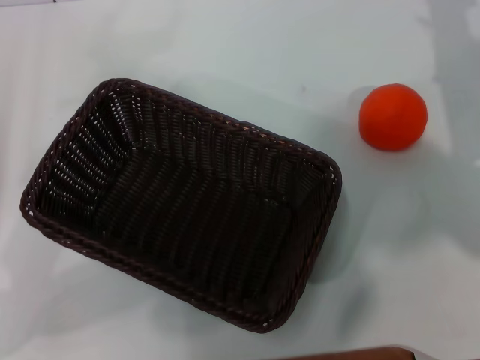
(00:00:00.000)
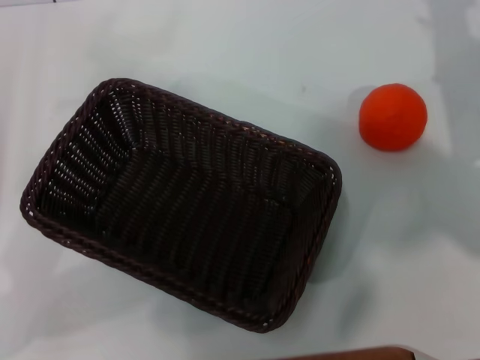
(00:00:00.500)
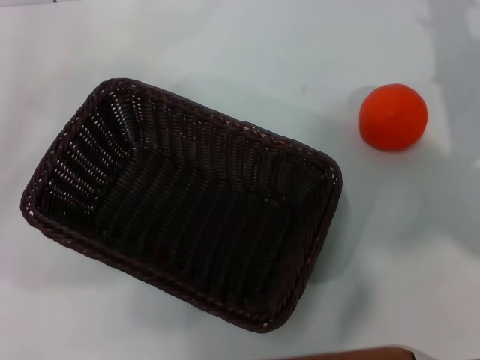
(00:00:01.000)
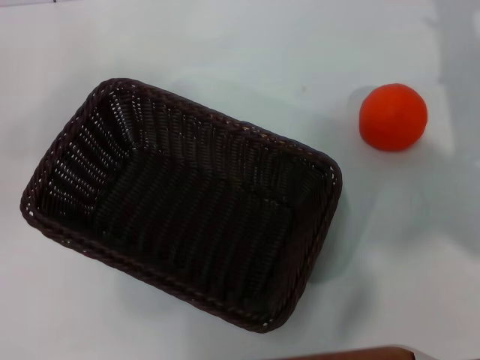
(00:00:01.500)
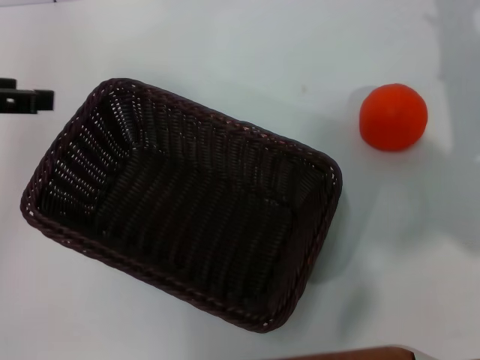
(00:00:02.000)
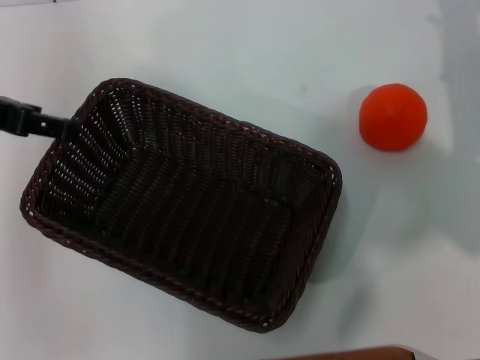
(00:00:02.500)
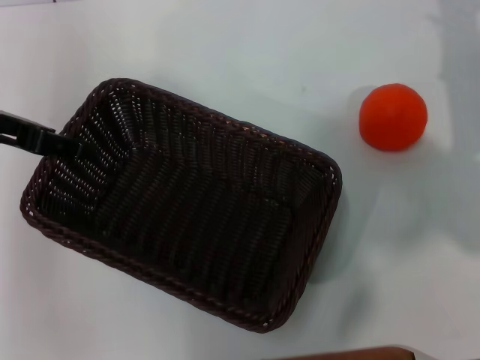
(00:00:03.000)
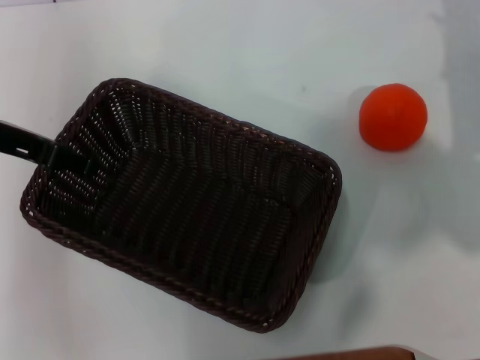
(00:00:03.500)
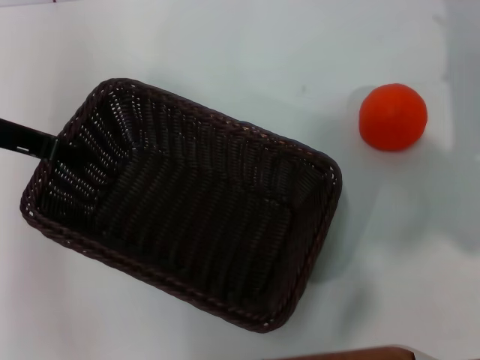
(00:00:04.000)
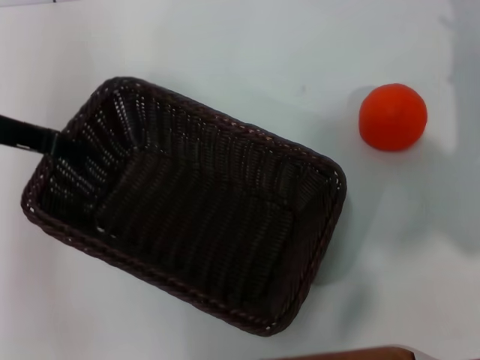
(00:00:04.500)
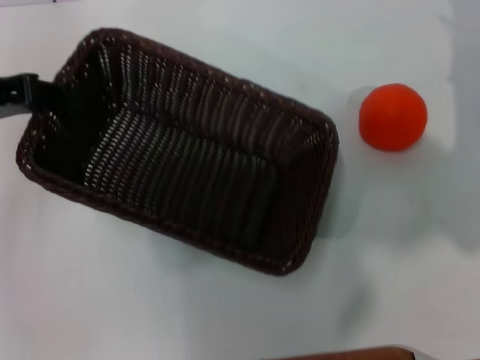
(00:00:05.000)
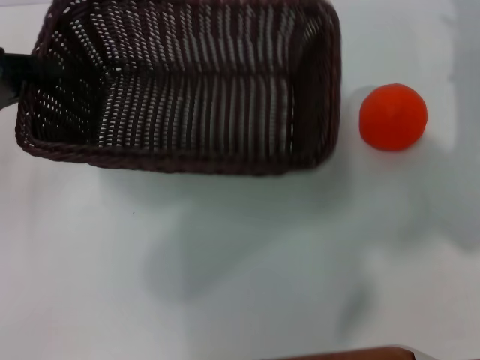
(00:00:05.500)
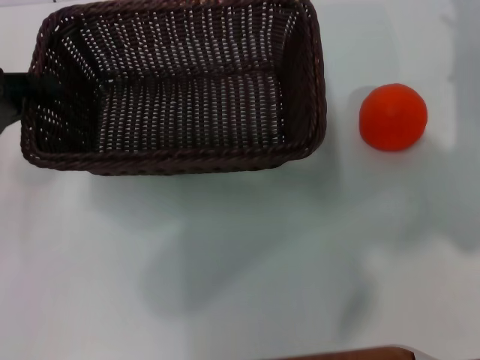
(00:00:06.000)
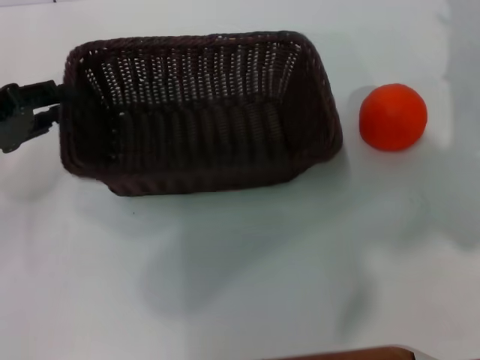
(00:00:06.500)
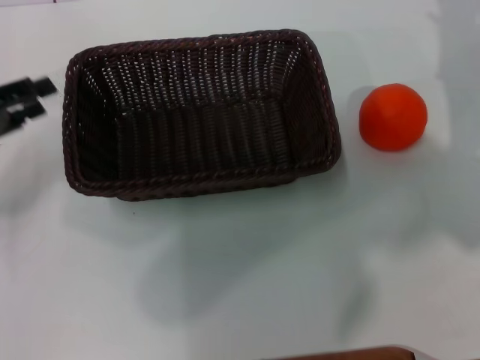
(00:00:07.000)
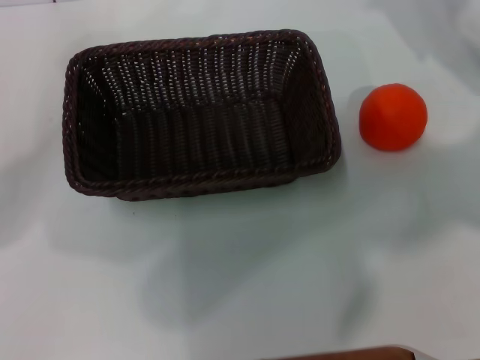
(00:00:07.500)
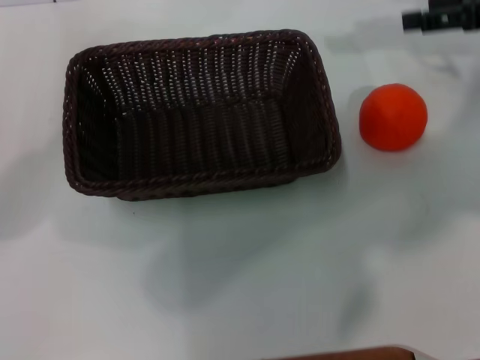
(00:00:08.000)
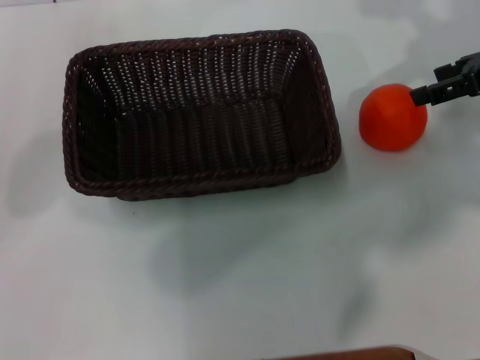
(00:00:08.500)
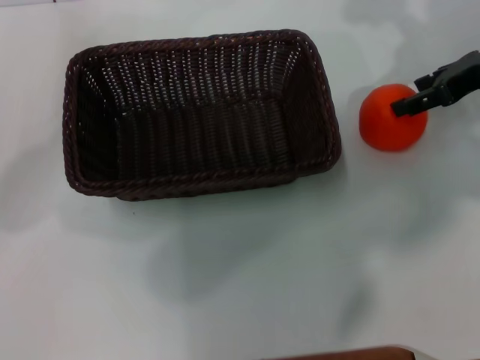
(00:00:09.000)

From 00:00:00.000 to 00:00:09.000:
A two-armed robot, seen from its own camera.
Task of the whole recording: the left gripper pick up the black basket and place it horizontally in the middle of the table, the right gripper pick up the orange and place it into the black basket.
Step, from 00:00:00.000 to 00:00:04.500: Pick up the dark basket with the left gripper.
Step, from 00:00:05.000 to 00:00:06.500: Place the dark basket in the center of view with the left gripper.
From 00:00:00.000 to 00:00:02.000: The left gripper moves upward and forward, about 15 cm.
From 00:00:02.000 to 00:00:04.500: The left gripper moves some 5 cm, and closes.
From 00:00:04.500 to 00:00:07.000: The left gripper shifts approximately 10 cm to the left and downward, and opens its fingers.
From 00:00:07.000 to 00:00:09.000: The left gripper opens its fingers, while the right gripper shifts some 10 cm upward.

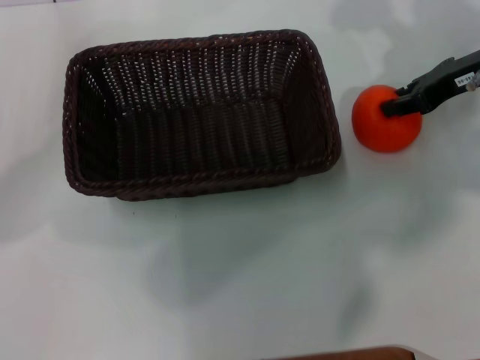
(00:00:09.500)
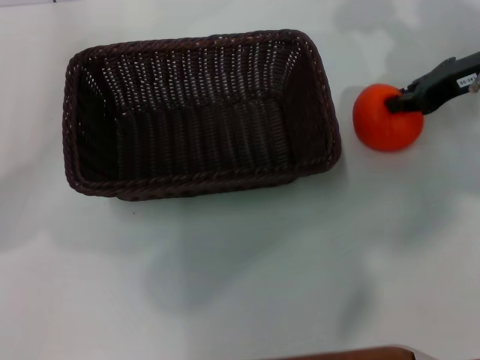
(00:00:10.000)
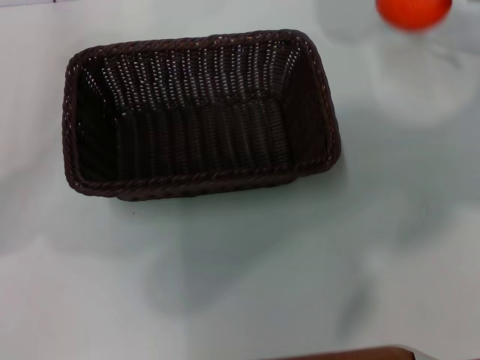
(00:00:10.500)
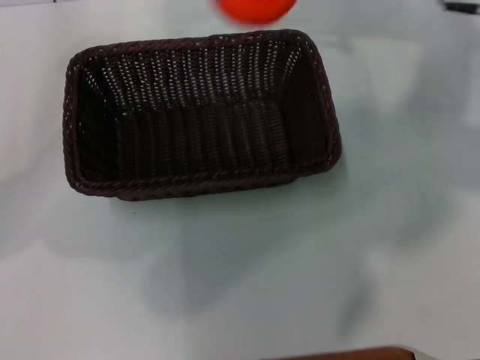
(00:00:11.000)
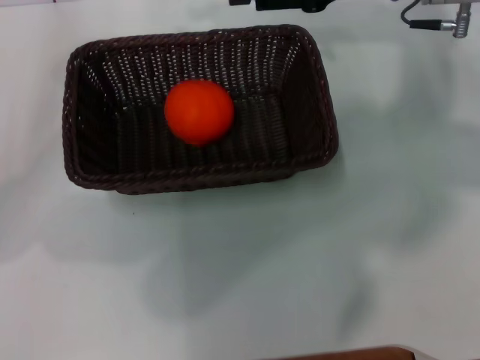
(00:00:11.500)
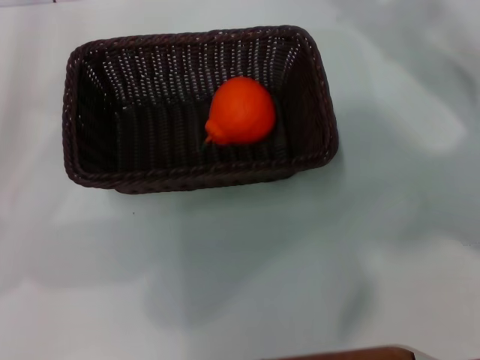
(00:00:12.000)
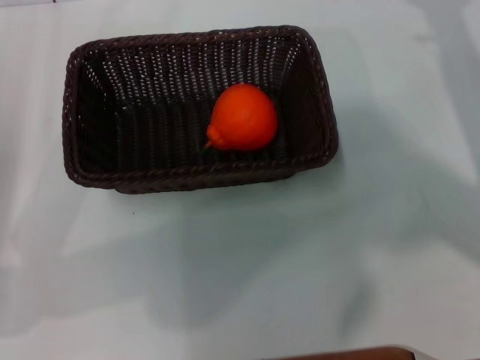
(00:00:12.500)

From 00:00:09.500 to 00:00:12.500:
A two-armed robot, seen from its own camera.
Task of the whole recording: the left gripper pick up the black basket and place it horizontally in the middle of the table, the right gripper pick up the orange and place it into the black basket.
Step, from 00:00:10.500 to 00:00:11.500: Place the orange into the dark basket with the right gripper.
From 00:00:09.500 to 00:00:11.000: The right gripper travels upward and to the left by about 10 cm, and closes up.
From 00:00:11.000 to 00:00:12.500: The right gripper goes some 15 cm downward, to the right and backward, and opens up. Meanwhile the left gripper shifts by approximately 5 cm.

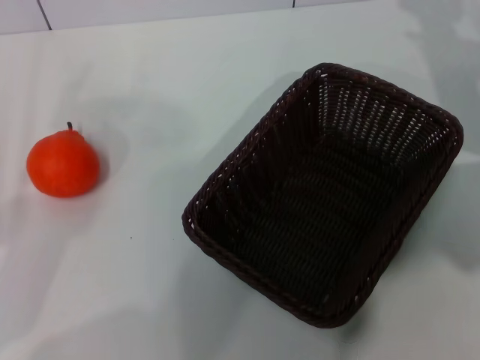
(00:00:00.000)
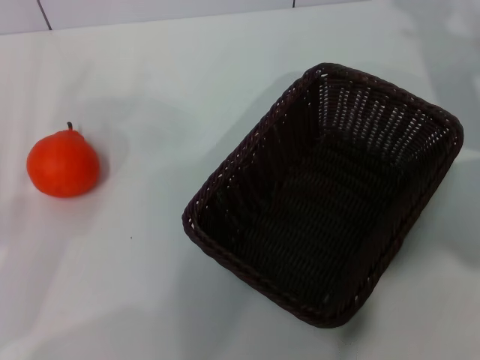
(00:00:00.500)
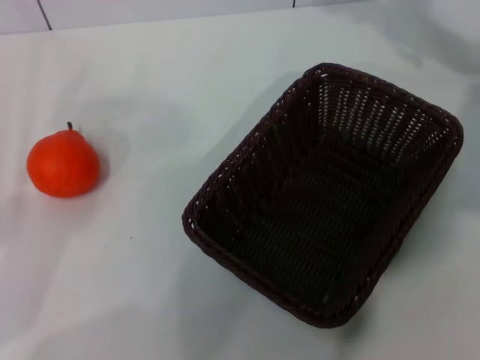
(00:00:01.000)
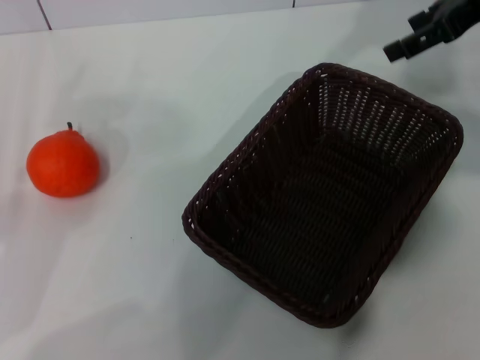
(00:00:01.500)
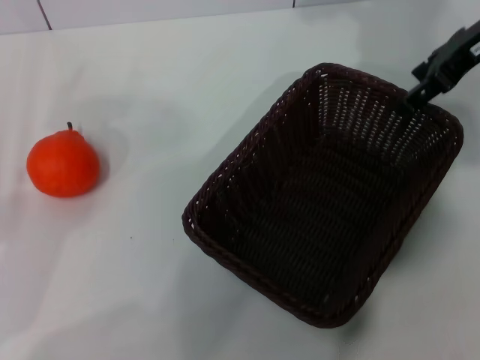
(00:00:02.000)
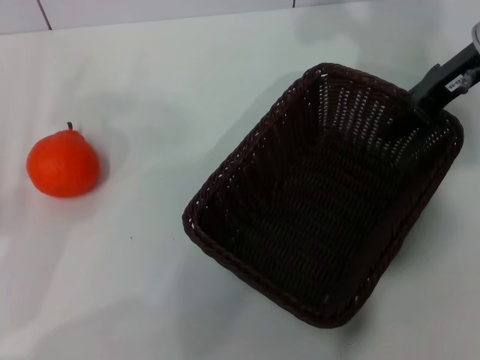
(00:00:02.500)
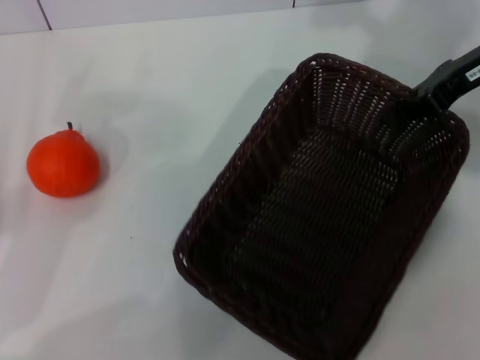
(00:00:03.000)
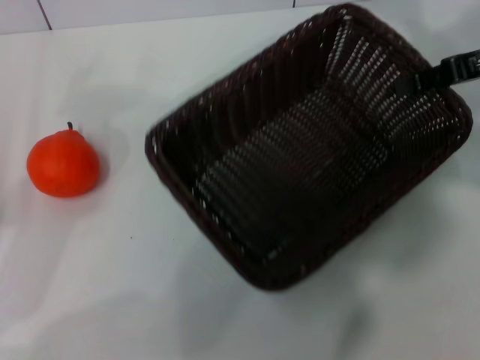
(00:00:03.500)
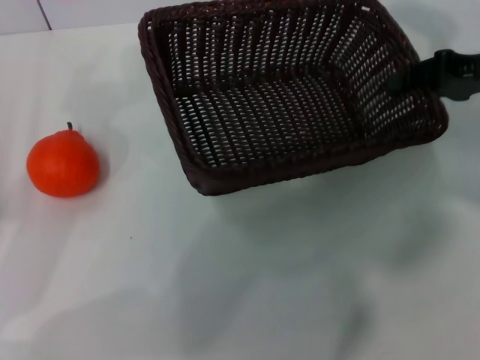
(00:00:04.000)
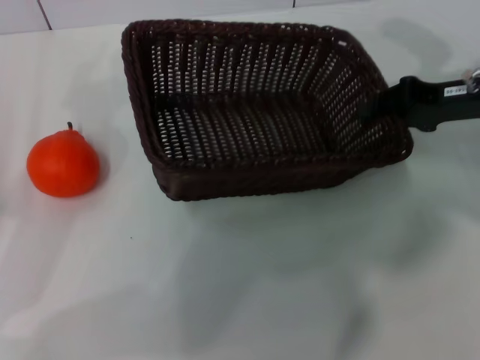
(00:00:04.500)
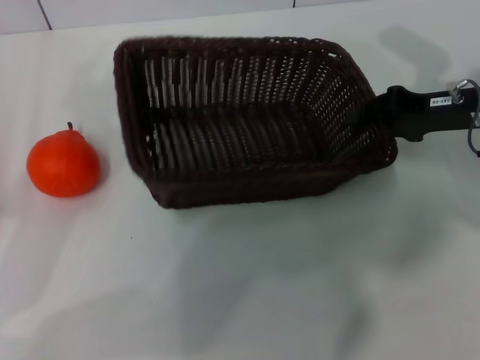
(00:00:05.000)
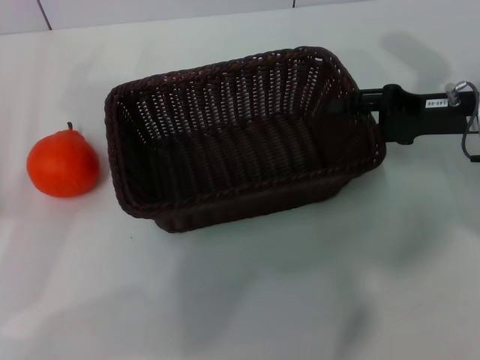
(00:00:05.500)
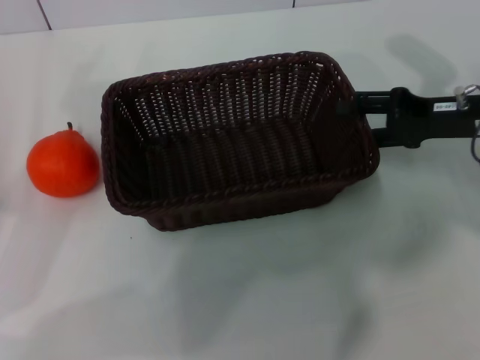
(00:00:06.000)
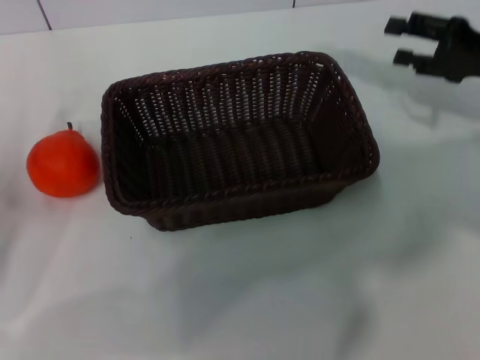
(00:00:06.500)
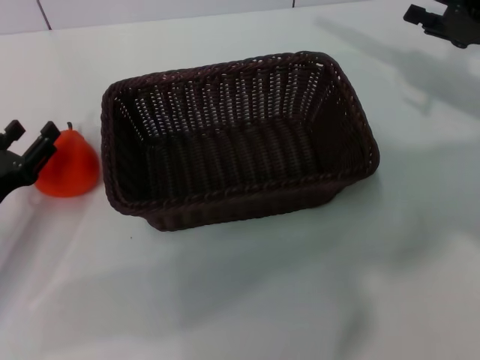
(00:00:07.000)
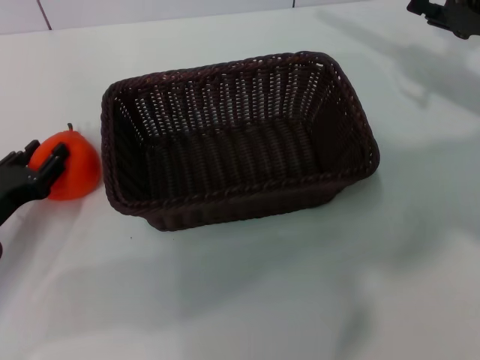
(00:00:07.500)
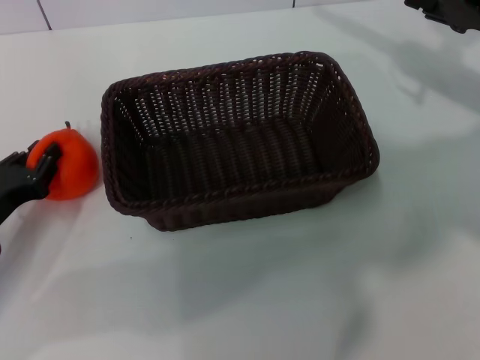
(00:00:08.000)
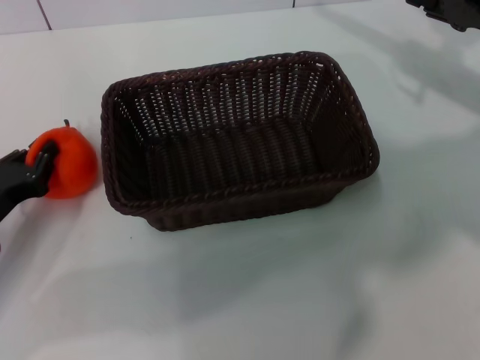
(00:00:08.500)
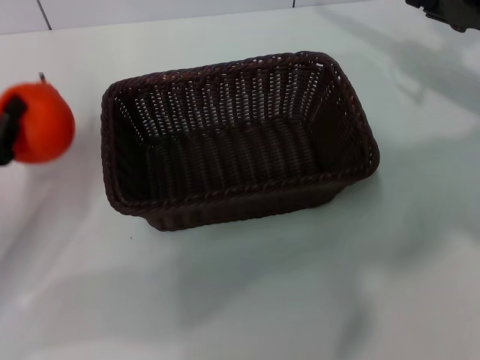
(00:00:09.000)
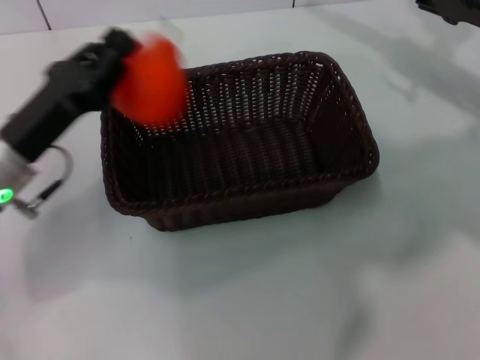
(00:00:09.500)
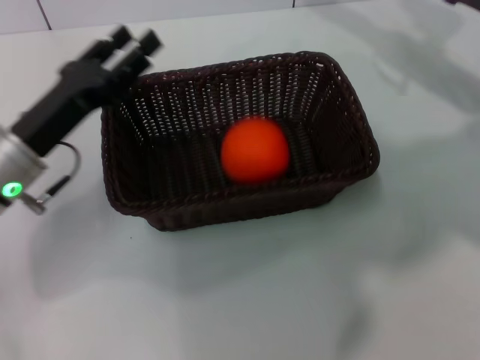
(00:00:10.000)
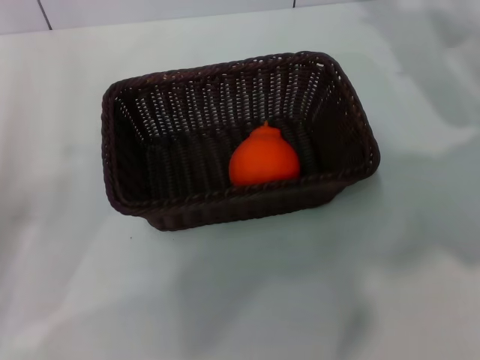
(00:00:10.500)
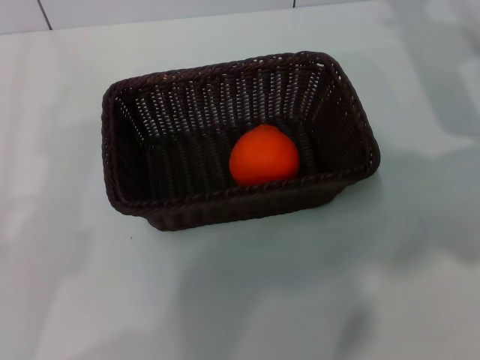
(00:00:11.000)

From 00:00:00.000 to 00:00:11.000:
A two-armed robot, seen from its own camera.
Task of the whole recording: the right gripper pick up the black basket and place it horizontally in the middle of the table, the left gripper pick up the orange and place it into the black basket.
Step, from 00:00:00.000 to 00:00:03.000: Pick up the dark basket with the right gripper.
Step, from 00:00:03.500 to 00:00:05.500: Place the dark basket in the center of view with the right gripper.
Step, from 00:00:06.500 to 00:00:08.500: Pick up the orange with the left gripper.
Step, from 00:00:09.000 to 00:00:09.500: Place the orange into the dark basket with the left gripper.
From 00:00:00.000 to 00:00:02.000: The right gripper moves upward and to the left, roughly 15 cm.
From 00:00:02.000 to 00:00:03.500: The right gripper shifts roughly 5 cm to the right, and closes up.
From 00:00:03.500 to 00:00:05.500: The right gripper moves downward, approximately 10 cm, and opens.
From 00:00:05.500 to 00:00:07.500: The right gripper shifts by approximately 5 cm, while the left gripper shifts roughly 5 cm downward.
From 00:00:07.500 to 00:00:09.000: The left gripper closes up.
From 00:00:09.000 to 00:00:11.000: The left gripper shifts some 10 cm backward, and opens.
